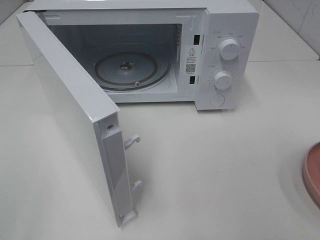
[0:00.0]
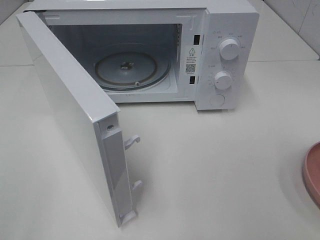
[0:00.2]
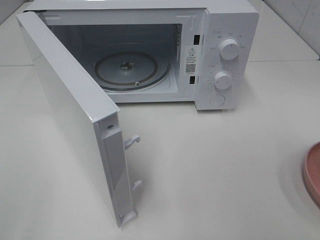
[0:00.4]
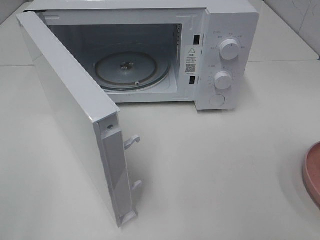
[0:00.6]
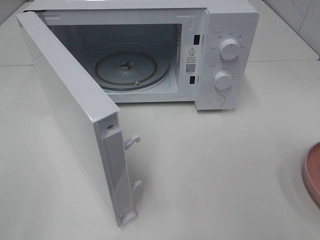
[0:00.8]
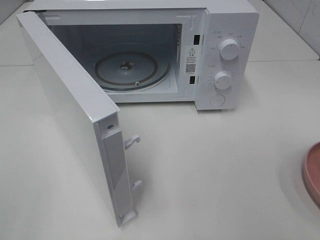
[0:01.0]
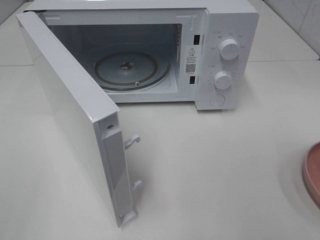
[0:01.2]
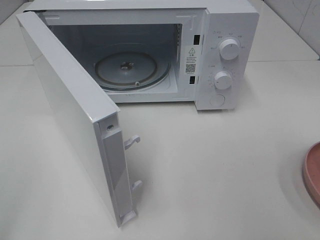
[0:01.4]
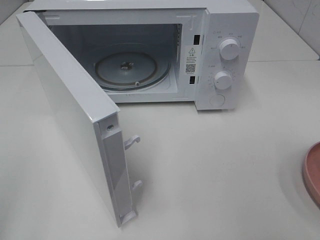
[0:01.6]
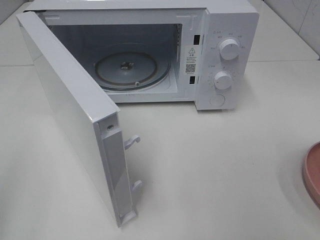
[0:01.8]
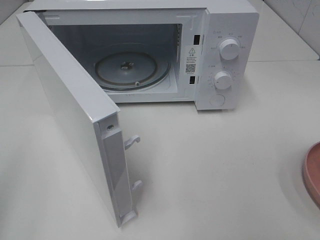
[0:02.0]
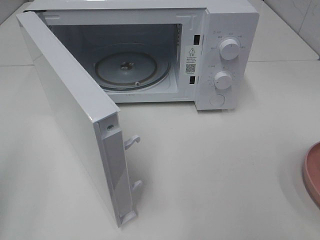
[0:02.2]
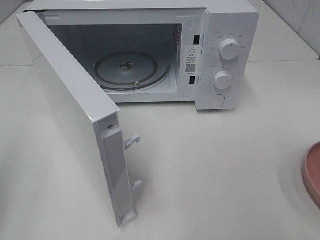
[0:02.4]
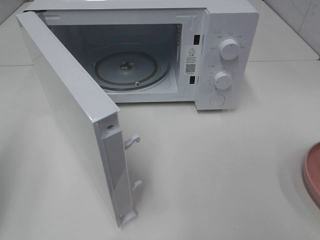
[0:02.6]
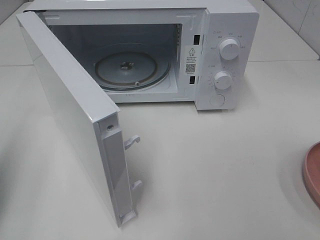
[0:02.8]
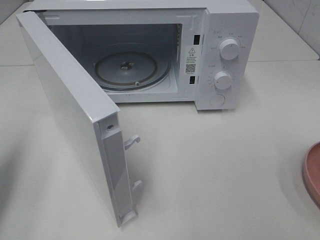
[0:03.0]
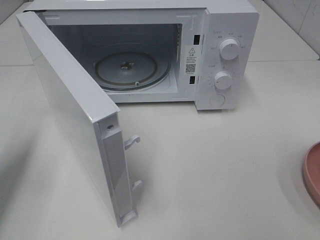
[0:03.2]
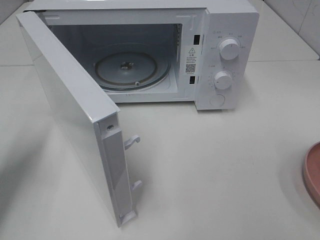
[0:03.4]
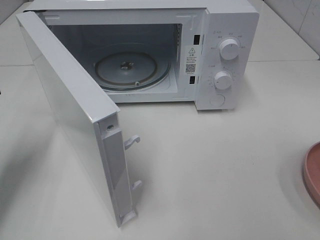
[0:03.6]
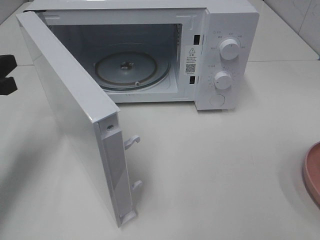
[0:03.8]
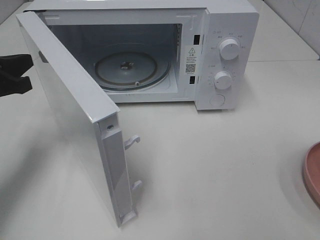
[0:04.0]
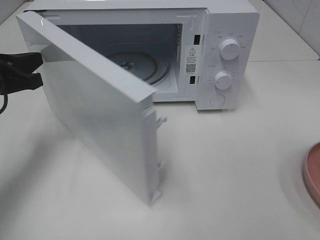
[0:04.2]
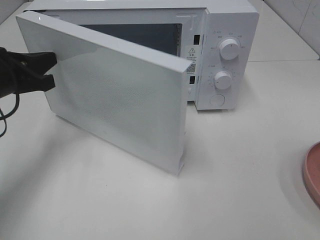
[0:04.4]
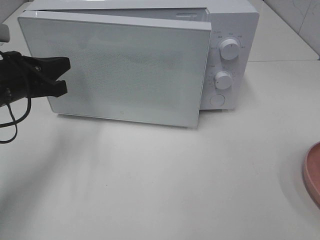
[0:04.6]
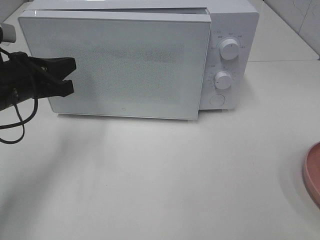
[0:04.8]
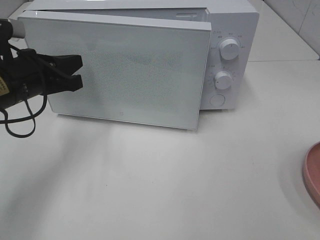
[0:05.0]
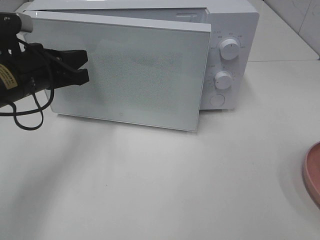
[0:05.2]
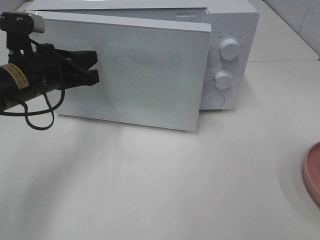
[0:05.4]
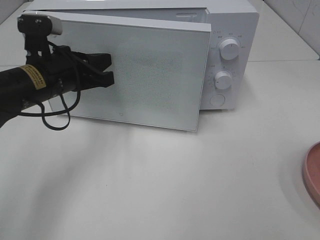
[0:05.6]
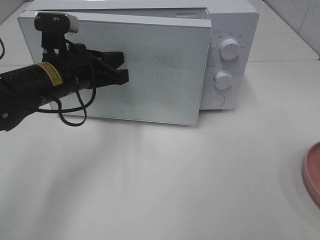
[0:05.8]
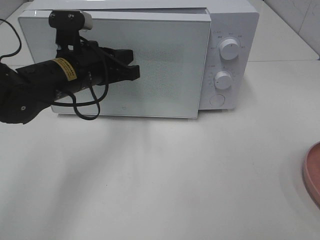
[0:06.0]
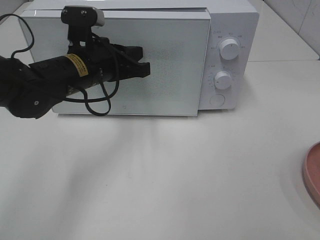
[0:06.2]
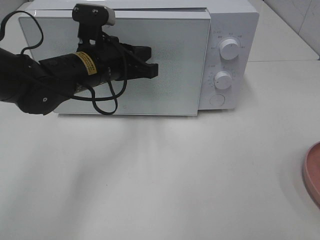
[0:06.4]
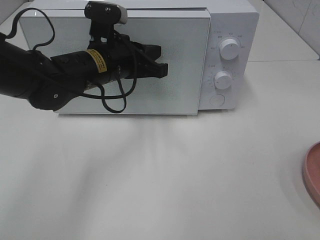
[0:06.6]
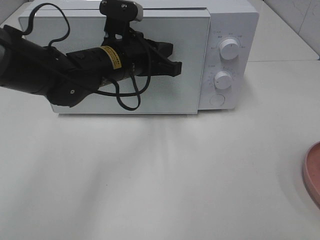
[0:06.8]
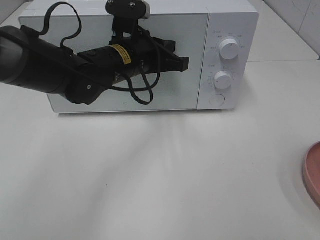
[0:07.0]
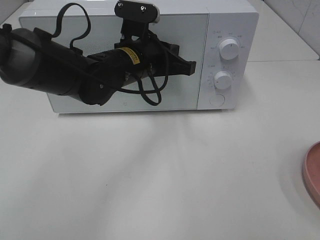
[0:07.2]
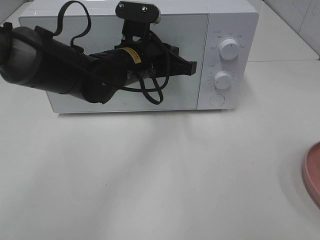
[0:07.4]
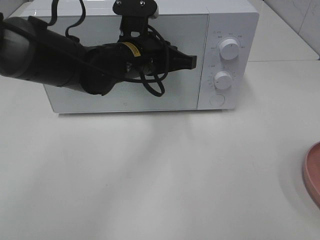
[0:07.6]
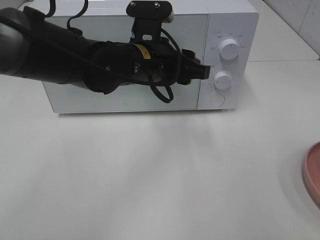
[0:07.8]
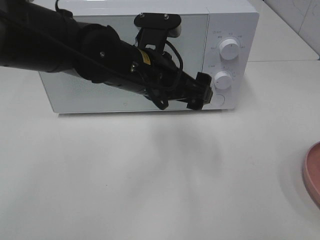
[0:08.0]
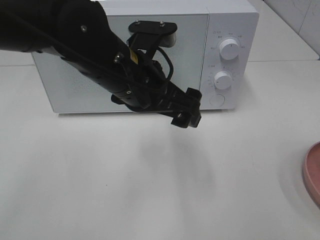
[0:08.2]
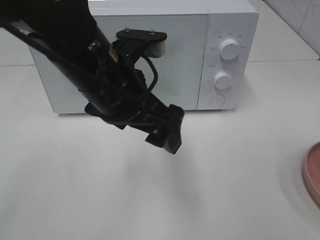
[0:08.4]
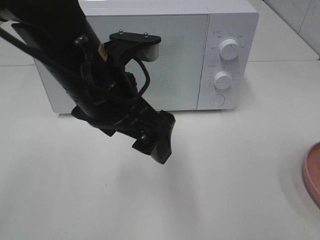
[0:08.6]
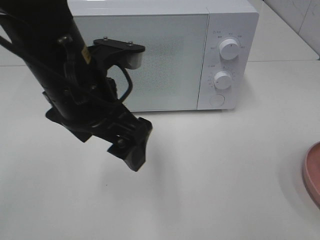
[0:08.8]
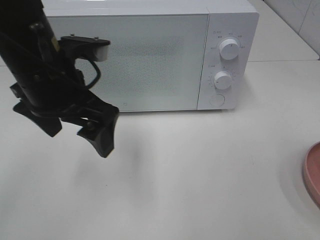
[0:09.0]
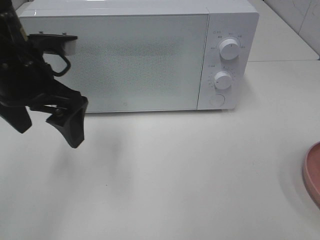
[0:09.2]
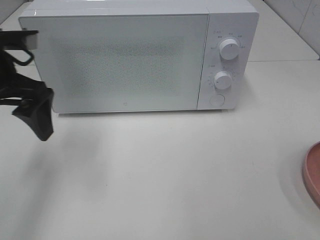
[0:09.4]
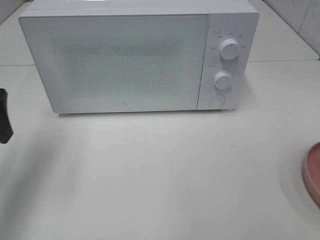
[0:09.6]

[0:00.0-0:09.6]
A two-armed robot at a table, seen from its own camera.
Task of the whole recording: Heat the burger.
Step, 0:00.0 to 0:07.0: Left hand: close the microwave door.
0:01.6 to 0:03.2: The left gripper travels forward and downward by about 20 cm.
0:03.2 to 0:04.8: The left gripper goes roughly 15 cm to the right and forward.
0:04.8 to 0:06.4: The left gripper goes approximately 10 cm to the right.
0:06.4 to 0:08.0: The left gripper moves to the right and backward, approximately 10 cm, and opens.
0:08.0 to 0:09.6: The left gripper goes approximately 25 cm to the left.

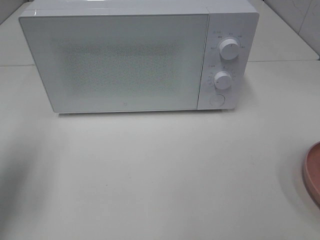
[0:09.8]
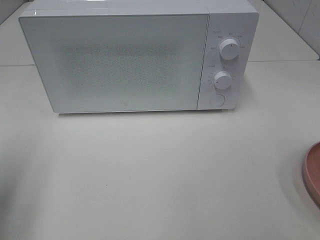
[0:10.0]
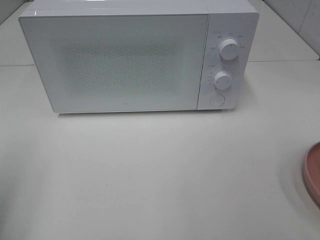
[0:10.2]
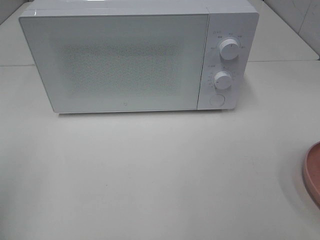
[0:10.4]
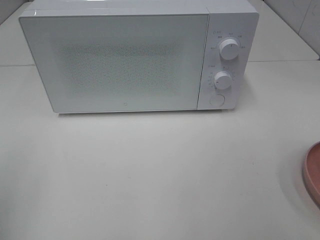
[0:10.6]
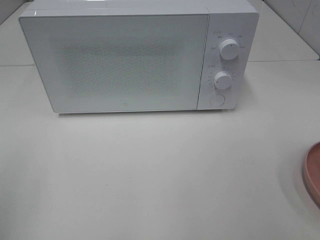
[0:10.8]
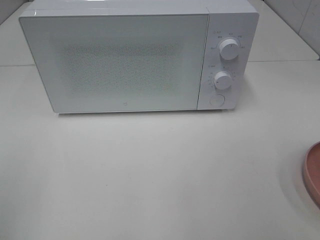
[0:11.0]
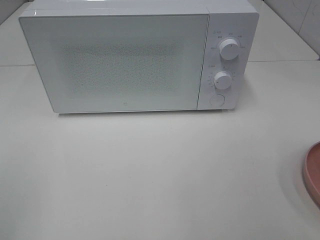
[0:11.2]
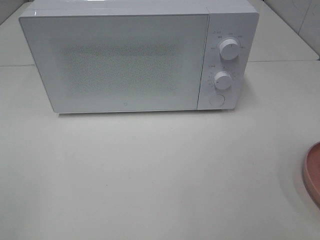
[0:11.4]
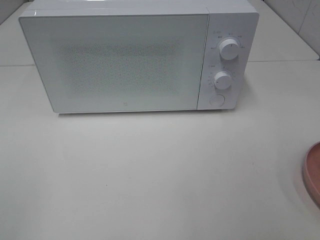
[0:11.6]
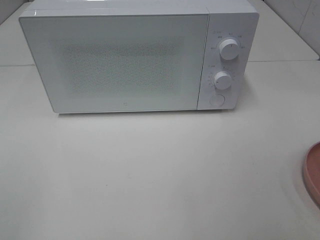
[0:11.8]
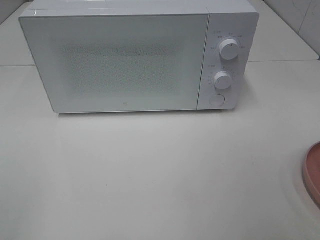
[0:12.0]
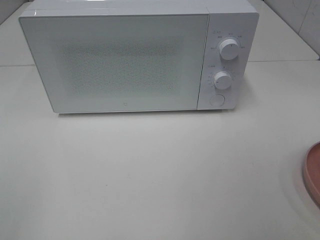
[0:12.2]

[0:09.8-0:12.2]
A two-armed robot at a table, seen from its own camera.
Task of the whole recording: Heat the burger.
0:09.8 to 0:11.0: The left gripper moves backward, about 15 cm.

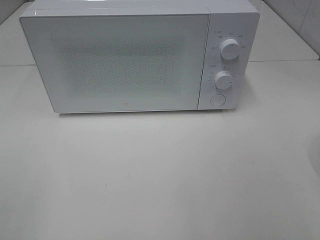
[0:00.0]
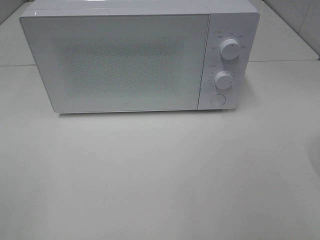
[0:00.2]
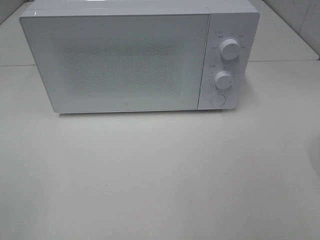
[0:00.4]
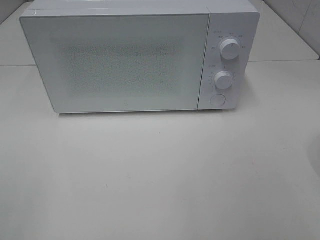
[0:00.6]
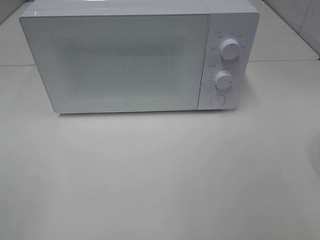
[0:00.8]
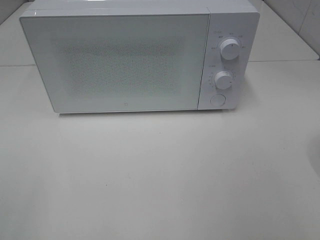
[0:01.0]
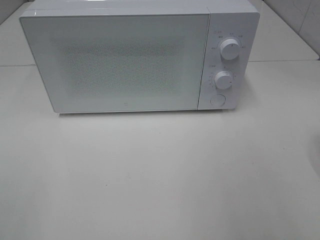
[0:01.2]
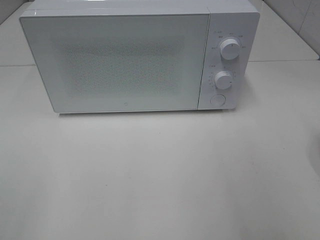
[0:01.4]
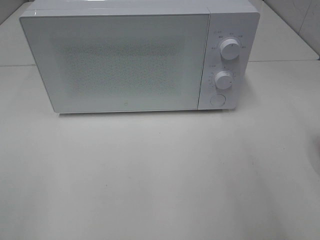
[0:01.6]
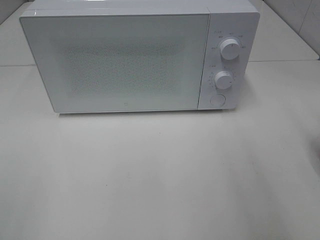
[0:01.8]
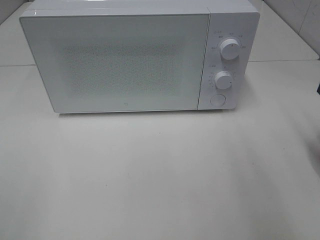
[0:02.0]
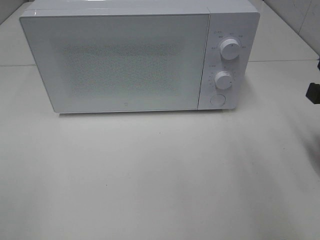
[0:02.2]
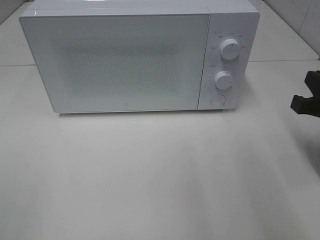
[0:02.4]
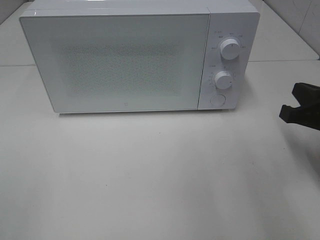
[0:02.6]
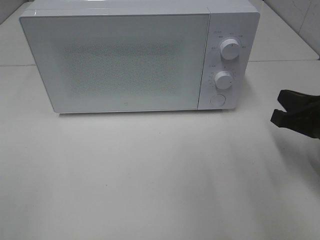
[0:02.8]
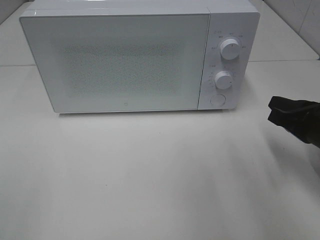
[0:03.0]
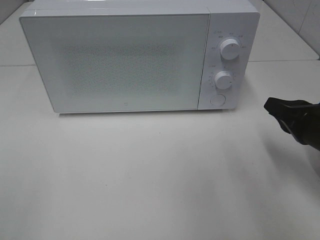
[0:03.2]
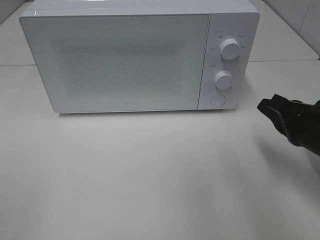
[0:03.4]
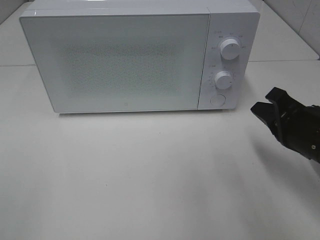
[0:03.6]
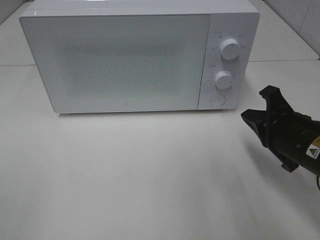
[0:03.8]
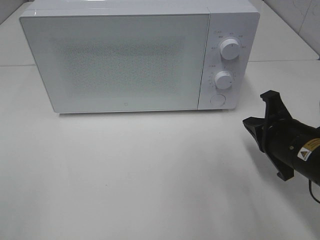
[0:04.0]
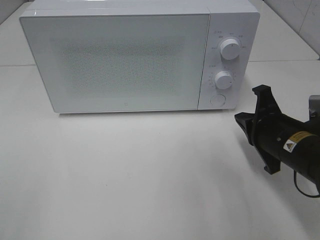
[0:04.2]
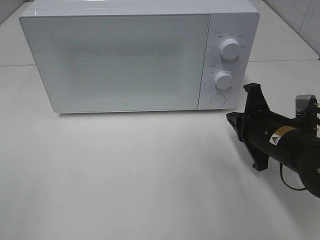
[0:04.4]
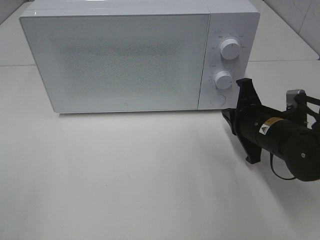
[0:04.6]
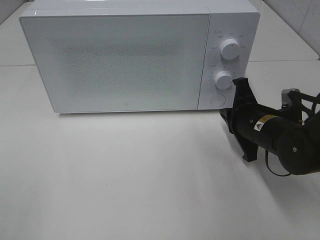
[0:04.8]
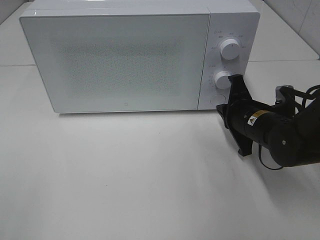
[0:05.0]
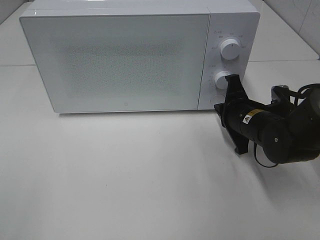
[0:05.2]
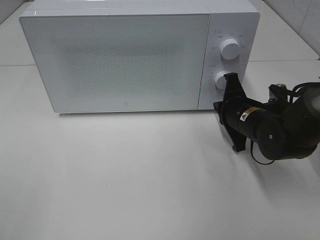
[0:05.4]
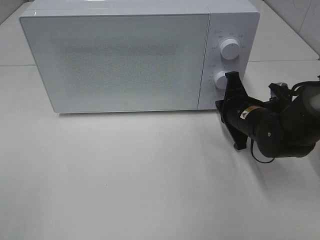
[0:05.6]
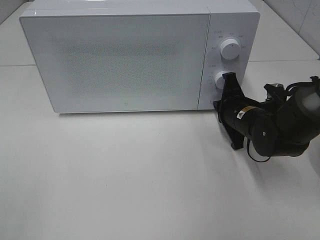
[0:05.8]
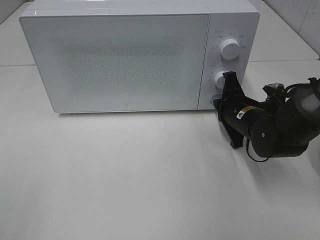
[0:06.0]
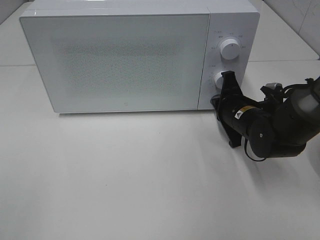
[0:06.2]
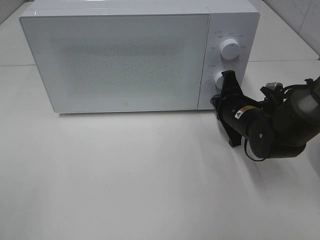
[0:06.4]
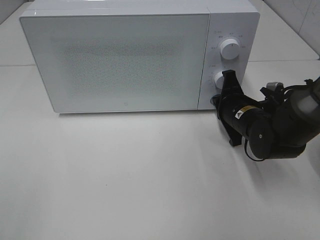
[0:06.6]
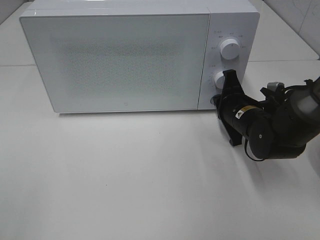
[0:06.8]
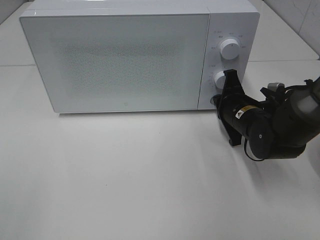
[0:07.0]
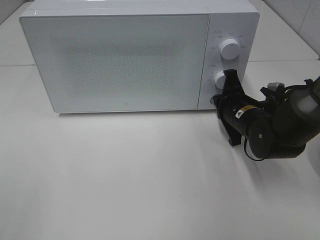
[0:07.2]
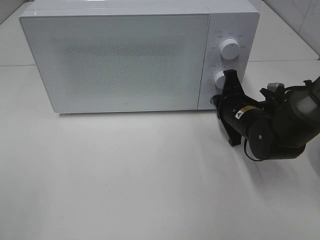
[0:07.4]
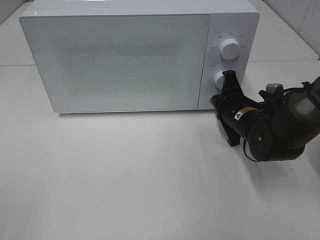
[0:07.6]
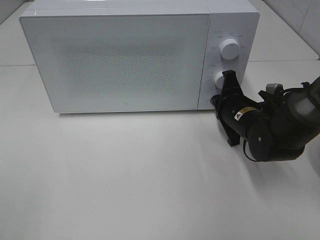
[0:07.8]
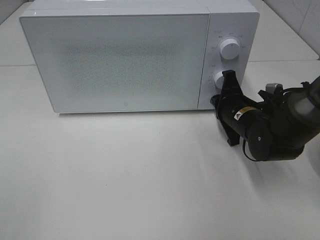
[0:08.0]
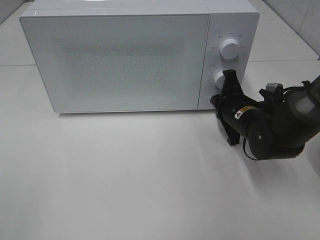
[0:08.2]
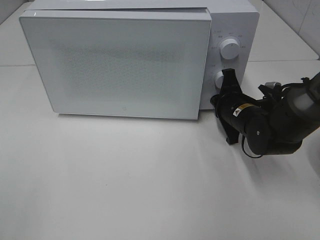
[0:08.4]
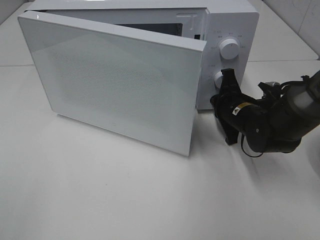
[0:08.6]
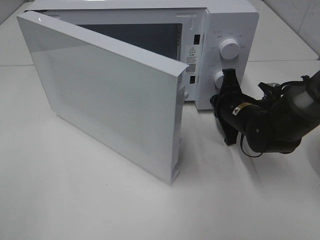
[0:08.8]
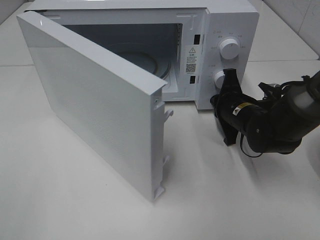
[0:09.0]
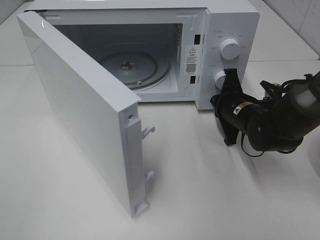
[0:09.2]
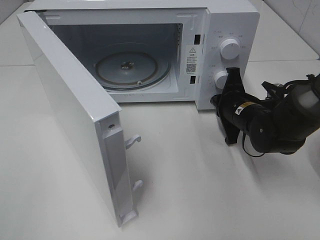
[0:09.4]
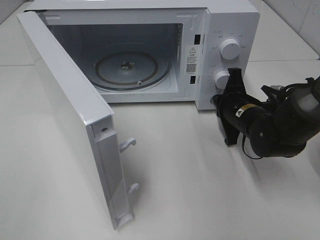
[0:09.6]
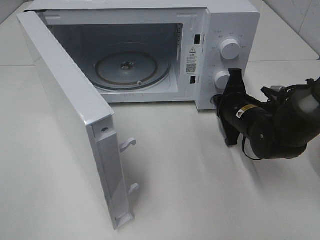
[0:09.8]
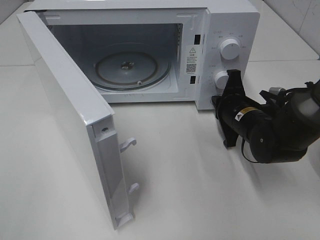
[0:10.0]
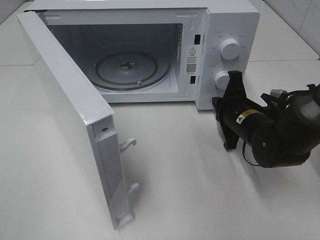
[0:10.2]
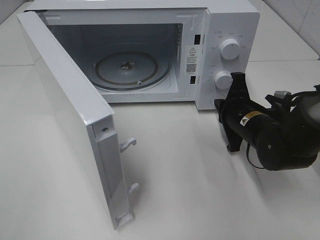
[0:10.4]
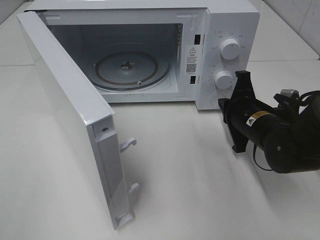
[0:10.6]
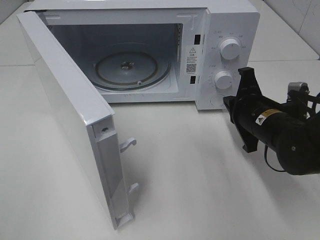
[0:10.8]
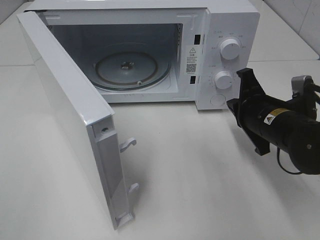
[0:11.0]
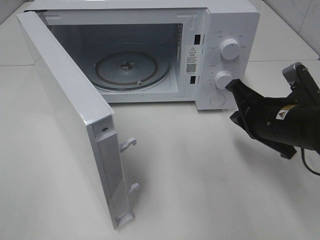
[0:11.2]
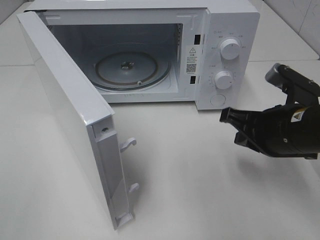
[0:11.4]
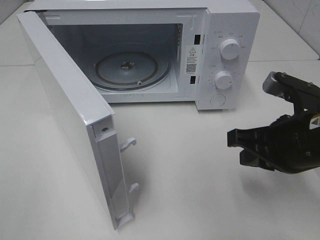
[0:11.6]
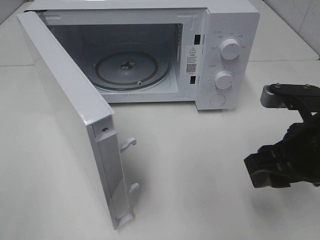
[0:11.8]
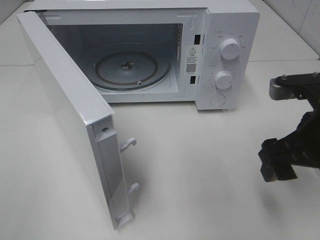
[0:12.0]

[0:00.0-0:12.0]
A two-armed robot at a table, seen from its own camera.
Task of the whole recording: Heat the burger.
Step, 0:00.0 to 0:10.2: Right hand: press the switch.
0:01.6 to 0:03.0: The right gripper shifts some 15 cm downward and forward, and closes its fingers.
0:03.0 to 0:04.4: The right gripper goes some 5 cm to the left.
0:04.4 to 0:06.0: The right gripper heads forward, covering about 10 cm.
0:06.0 to 0:07.6: Both grippers stay about where they are.
0:10.4 to 0:12.0: The right gripper moves upward and backward, some 15 cm, and opens its fingers.
